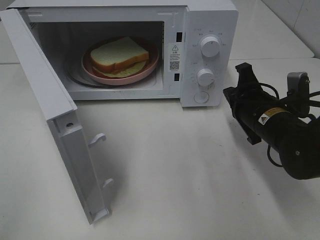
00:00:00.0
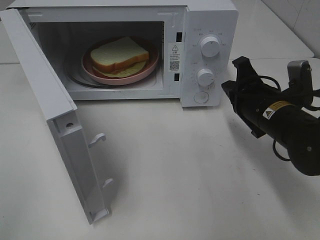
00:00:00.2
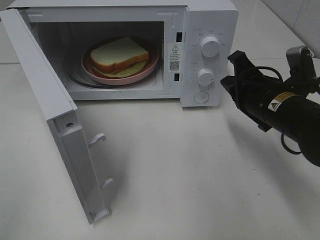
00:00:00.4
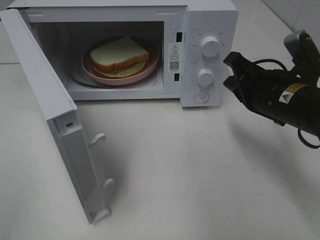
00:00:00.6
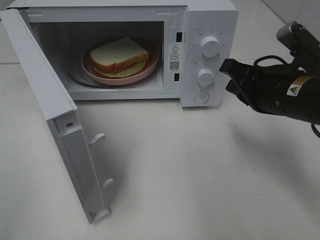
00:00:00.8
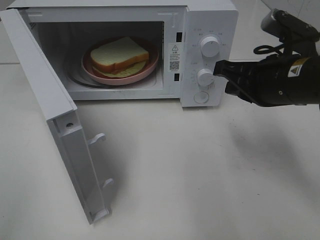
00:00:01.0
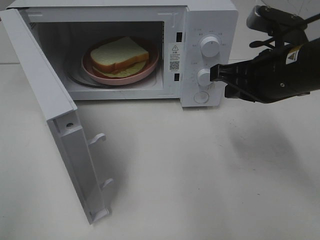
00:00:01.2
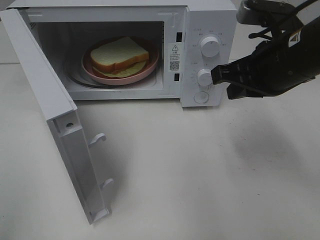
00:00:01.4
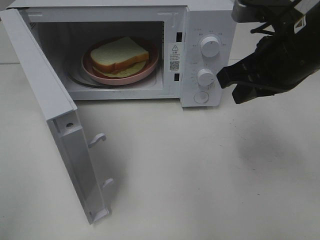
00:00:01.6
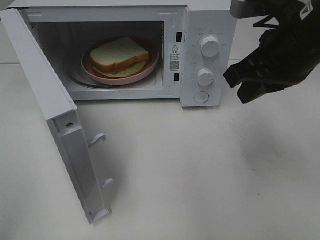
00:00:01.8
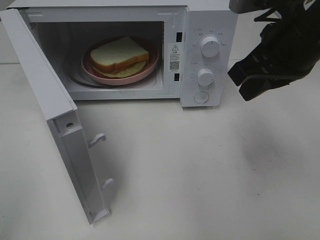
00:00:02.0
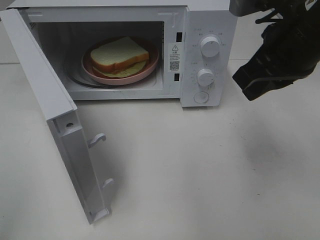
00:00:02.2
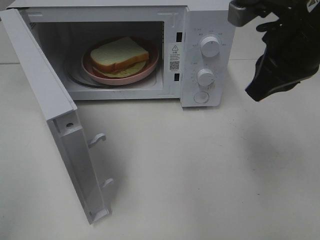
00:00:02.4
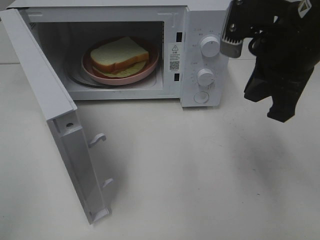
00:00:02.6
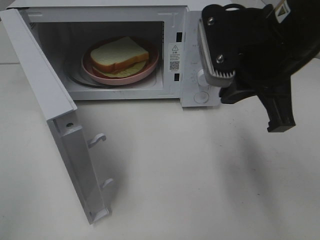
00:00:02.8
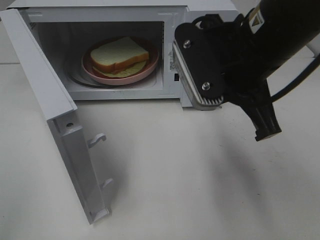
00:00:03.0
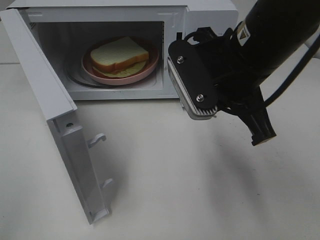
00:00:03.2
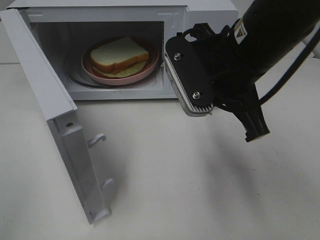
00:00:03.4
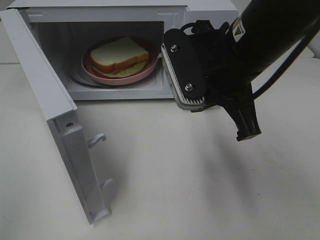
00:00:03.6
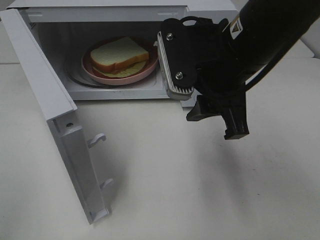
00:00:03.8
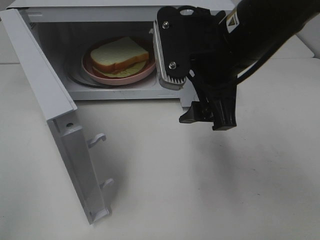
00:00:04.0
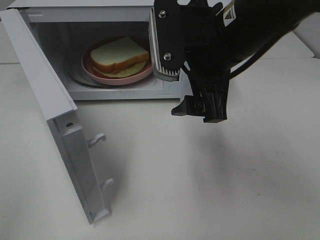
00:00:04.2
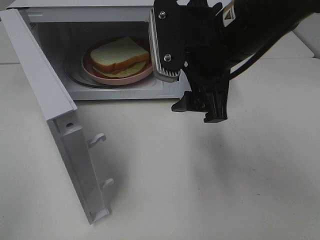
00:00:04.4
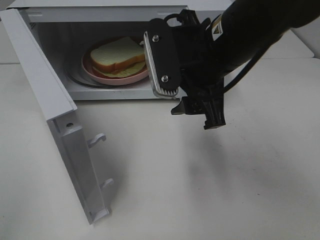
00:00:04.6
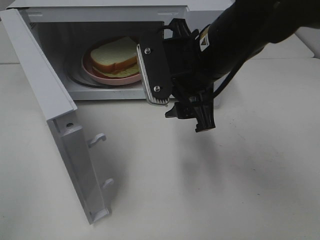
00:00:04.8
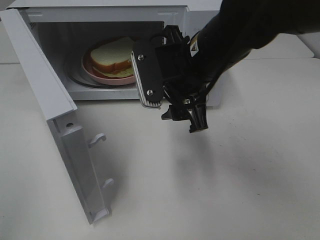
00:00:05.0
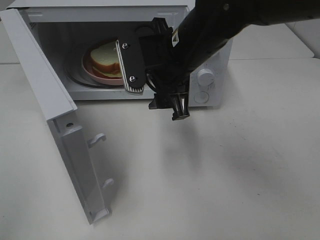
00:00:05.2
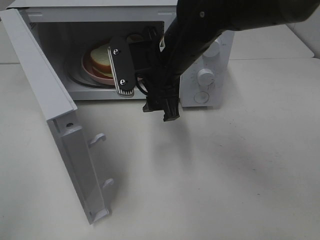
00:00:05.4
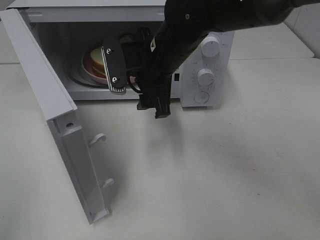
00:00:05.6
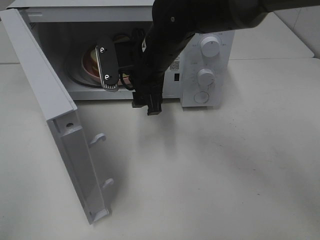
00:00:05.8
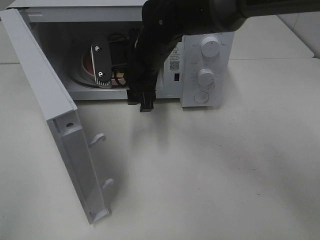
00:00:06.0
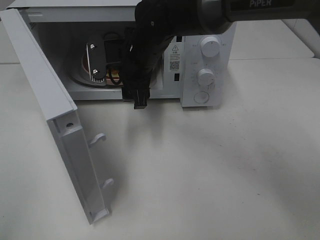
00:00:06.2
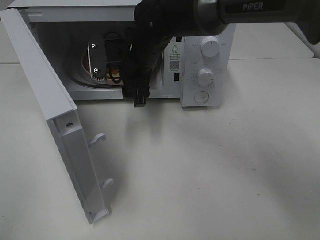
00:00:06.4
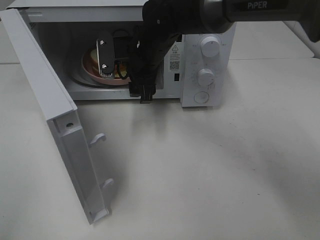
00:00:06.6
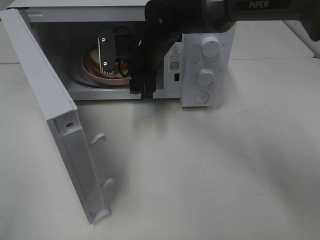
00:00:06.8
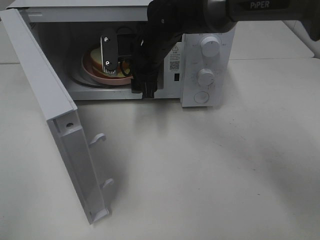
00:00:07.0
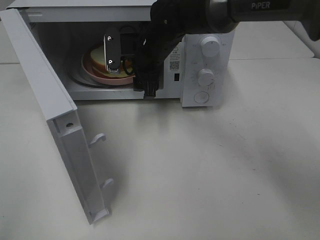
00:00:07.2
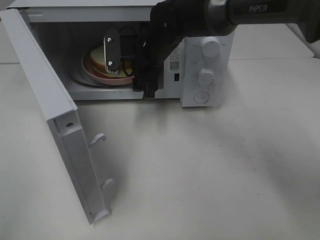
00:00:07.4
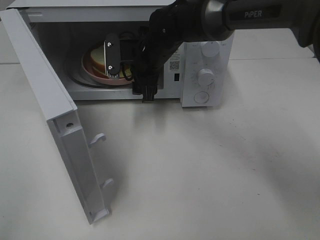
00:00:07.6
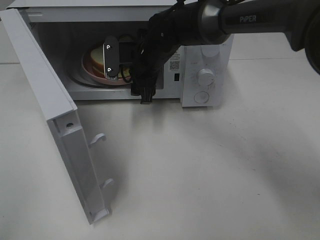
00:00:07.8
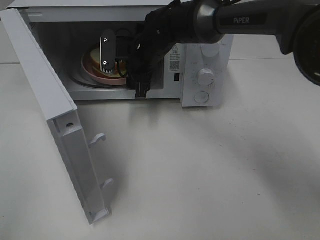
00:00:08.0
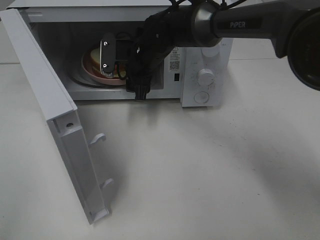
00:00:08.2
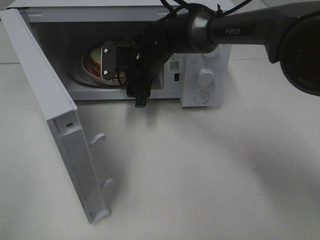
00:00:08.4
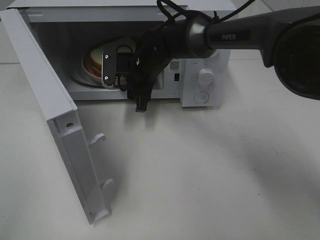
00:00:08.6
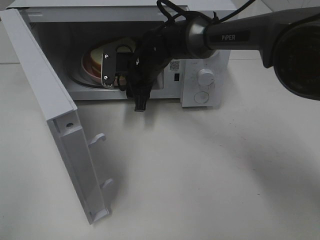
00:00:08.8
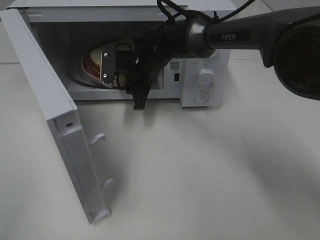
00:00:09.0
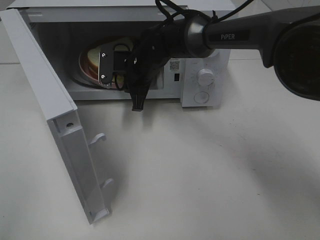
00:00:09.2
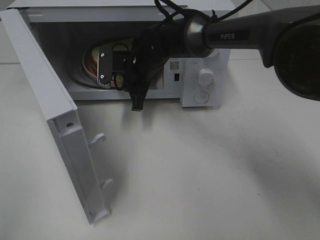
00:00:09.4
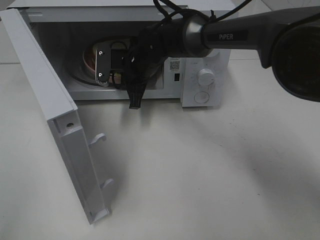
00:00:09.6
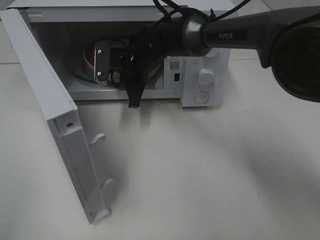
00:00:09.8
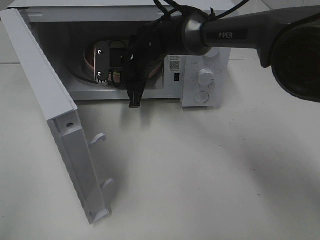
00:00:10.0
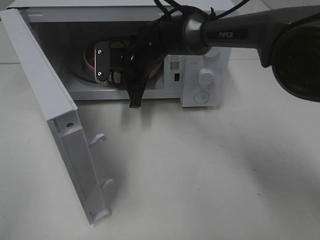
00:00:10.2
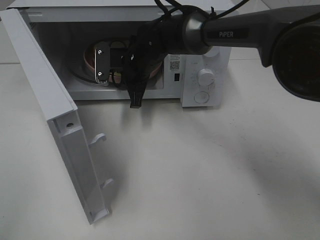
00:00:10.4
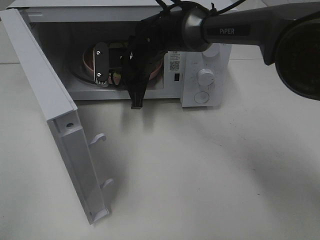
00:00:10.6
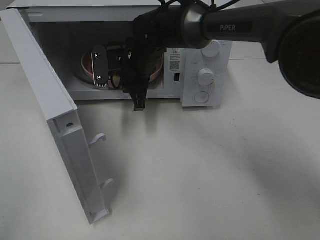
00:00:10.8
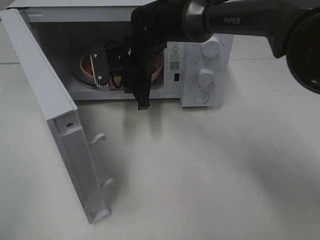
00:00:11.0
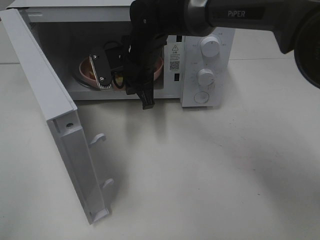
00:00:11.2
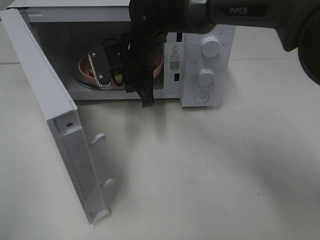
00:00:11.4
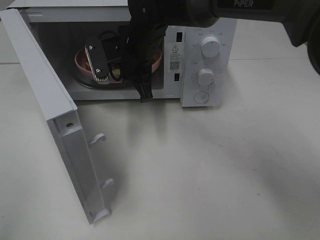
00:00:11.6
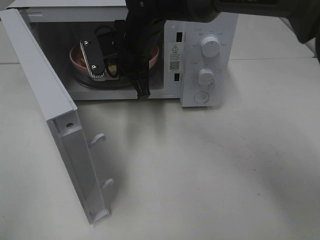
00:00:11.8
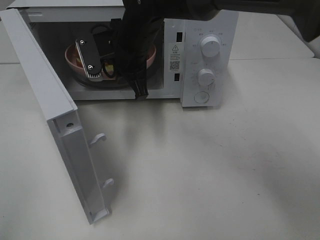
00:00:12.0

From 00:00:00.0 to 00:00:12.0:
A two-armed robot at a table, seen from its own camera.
Task of the whole recording: Heat Sandwich.
Step, from 00:00:00.0 to 00:00:09.4: Right hand: grab the plate with the sandwich.
From 00:00:00.0 to 00:00:01.6: The right gripper is displaced upward by some 15 cm.
From 00:00:01.6 to 00:00:03.0: The right gripper moves to the left, roughly 5 cm.
From 00:00:03.0 to 00:00:04.4: The right gripper opens.
From 00:00:04.4 to 00:00:06.0: The right gripper shifts approximately 20 cm forward, to the left and downward.
From 00:00:06.0 to 00:00:07.6: The right gripper shifts about 5 cm forward.
From 00:00:07.6 to 00:00:09.0: The right gripper closes its fingers.
From 00:00:09.0 to 00:00:10.4: Both grippers stay put.
From 00:00:10.4 to 00:00:12.0: The right gripper heads upward and backward, covering approximately 10 cm.

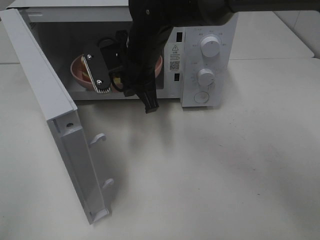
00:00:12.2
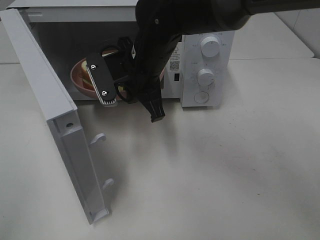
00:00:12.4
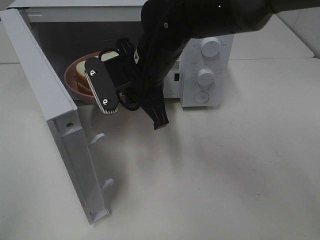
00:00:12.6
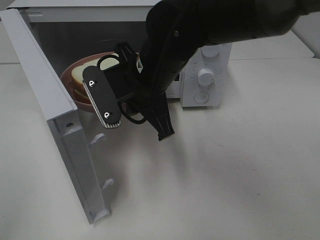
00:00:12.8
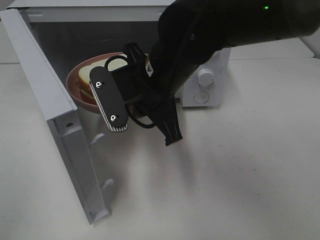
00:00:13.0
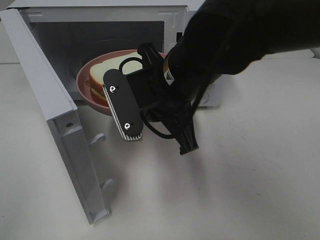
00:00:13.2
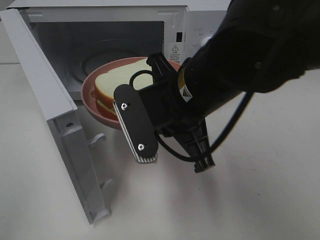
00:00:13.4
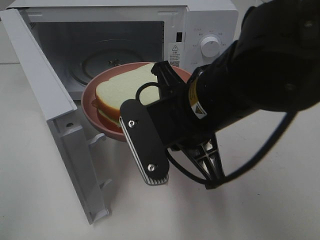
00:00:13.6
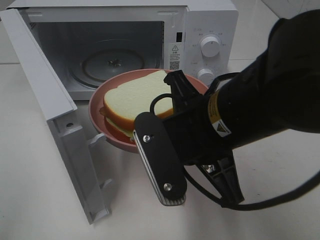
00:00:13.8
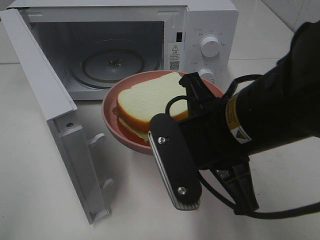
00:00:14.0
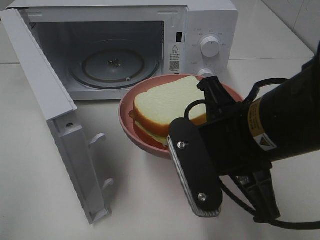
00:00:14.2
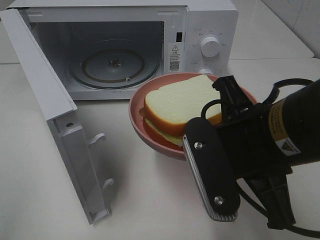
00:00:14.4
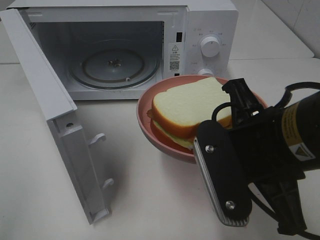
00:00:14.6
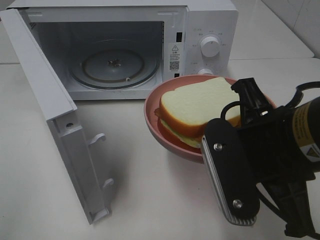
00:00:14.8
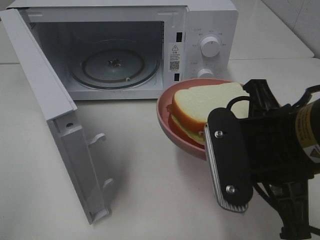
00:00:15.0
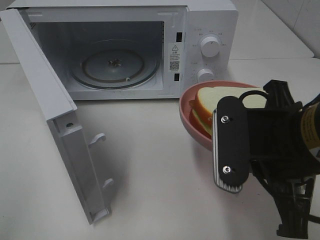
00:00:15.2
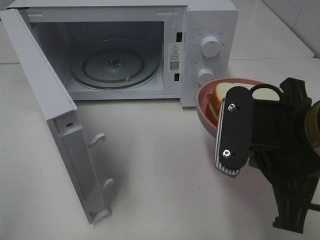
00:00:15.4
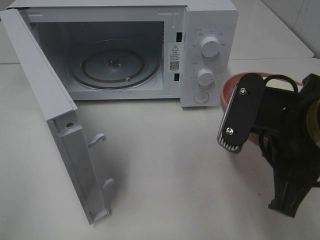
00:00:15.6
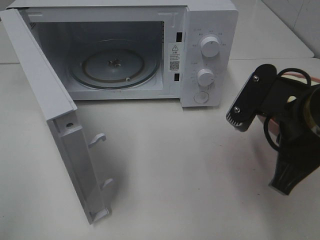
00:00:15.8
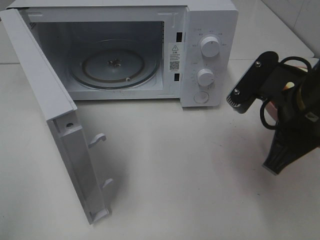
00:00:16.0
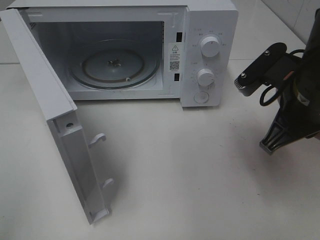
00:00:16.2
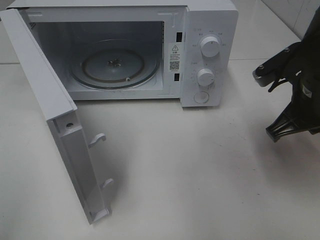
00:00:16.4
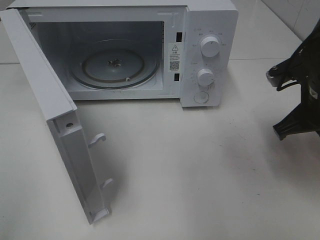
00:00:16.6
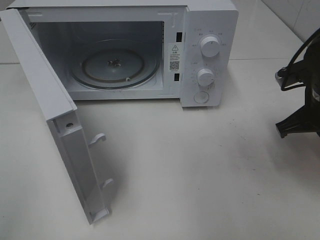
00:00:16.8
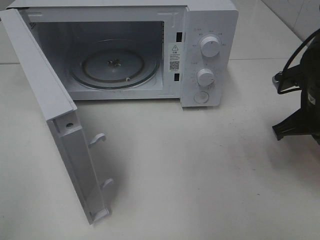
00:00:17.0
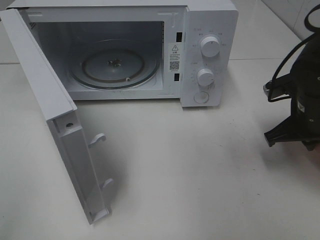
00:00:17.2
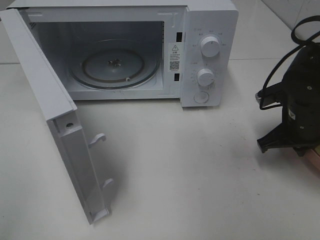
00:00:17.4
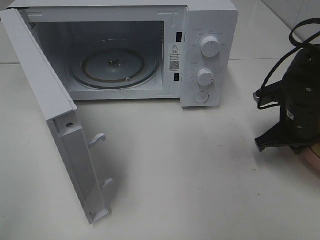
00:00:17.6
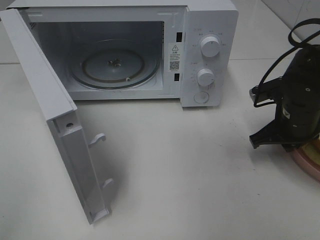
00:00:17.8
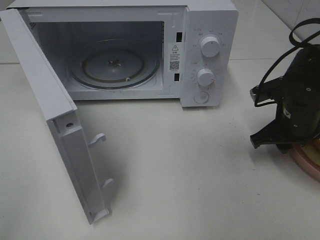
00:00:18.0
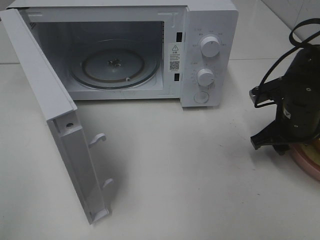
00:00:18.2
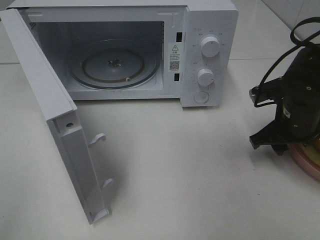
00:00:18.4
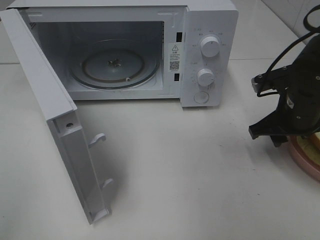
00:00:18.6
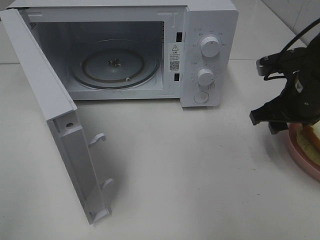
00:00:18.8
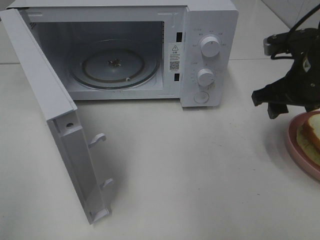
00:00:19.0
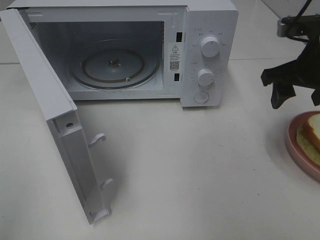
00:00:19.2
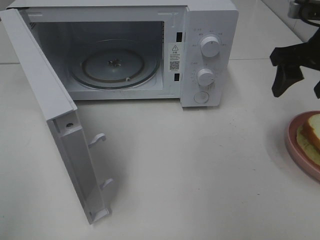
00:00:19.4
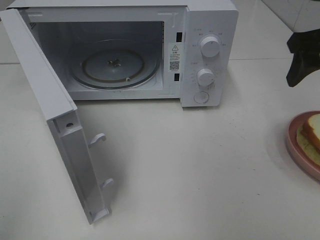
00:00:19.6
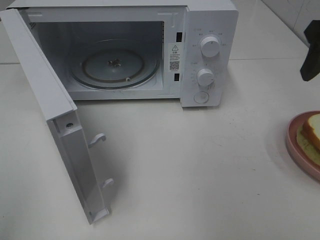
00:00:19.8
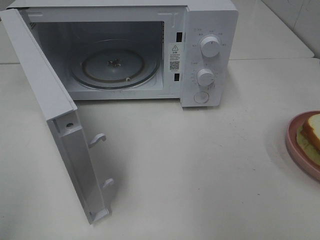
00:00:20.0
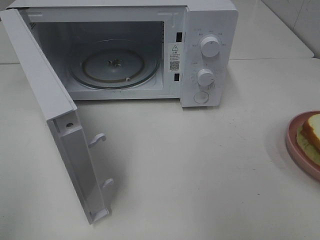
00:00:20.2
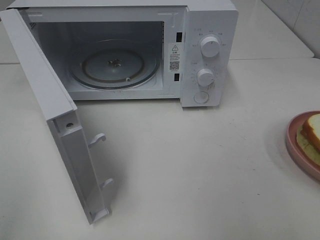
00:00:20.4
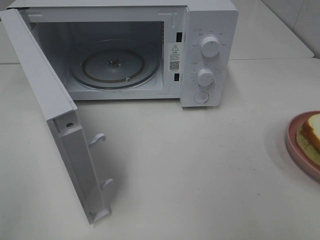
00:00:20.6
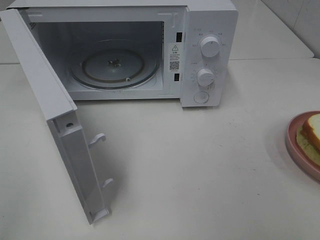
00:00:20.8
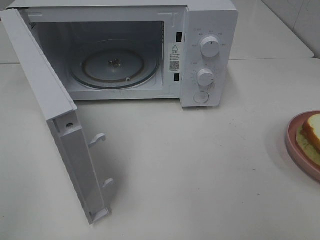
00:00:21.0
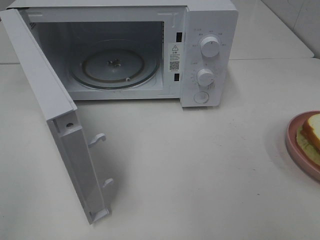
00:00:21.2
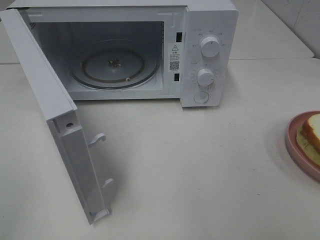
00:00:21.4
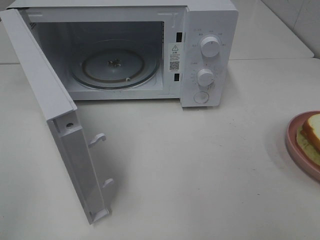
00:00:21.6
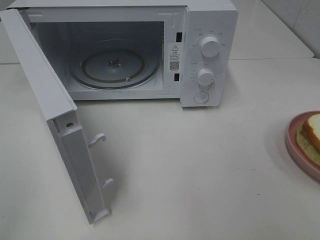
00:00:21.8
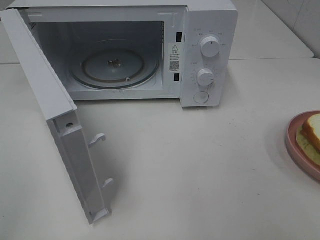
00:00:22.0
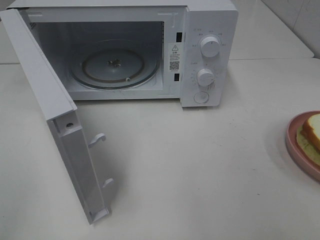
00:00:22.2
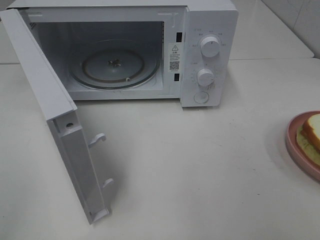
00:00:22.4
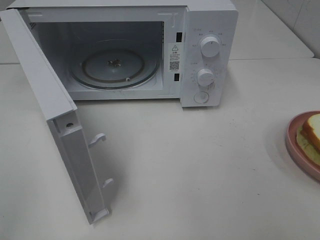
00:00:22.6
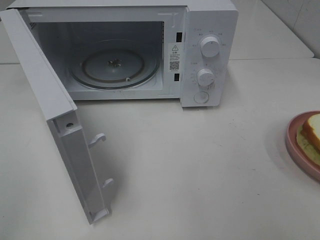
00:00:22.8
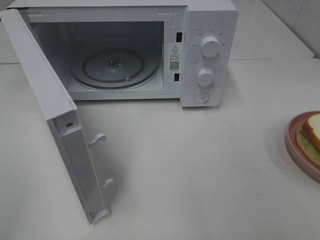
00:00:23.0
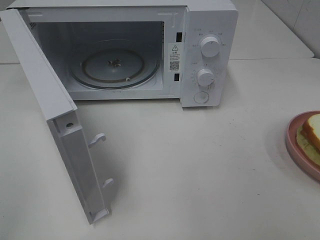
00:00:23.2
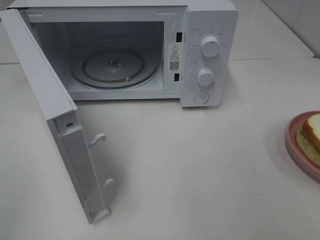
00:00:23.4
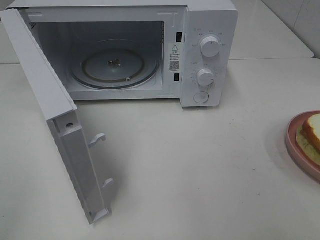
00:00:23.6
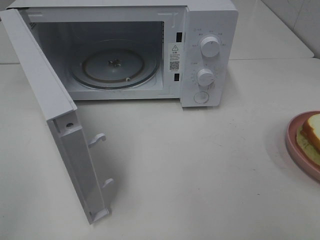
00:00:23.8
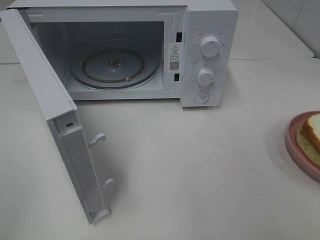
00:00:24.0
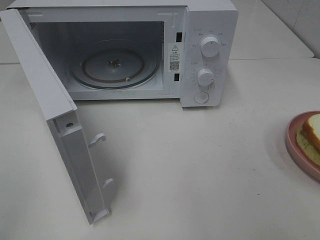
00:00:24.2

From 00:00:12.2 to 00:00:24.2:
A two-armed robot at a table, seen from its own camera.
Task of the whole recording: Heat Sandwich.
Step, from 00:00:12.2 to 00:00:19.4: Right hand: place the plate on the table.
From 00:00:12.2 to 00:00:13.8: The right gripper travels backward and to the right by approximately 20 cm.
From 00:00:13.8 to 00:00:15.2: The right gripper heads to the right, covering approximately 5 cm.
From 00:00:15.2 to 00:00:16.6: The right gripper is displaced forward and to the right by about 15 cm.
From 00:00:16.6 to 00:00:18.2: The right gripper travels downward by about 5 cm, and opens its fingers.
From 00:00:18.2 to 00:00:19.8: The right gripper heads upward, covering approximately 20 cm.
From 00:00:19.8 to 00:00:21.2: The right gripper goes about 25 cm backward.
From 00:00:22.6 to 00:00:24.2: Neither gripper changes place.
